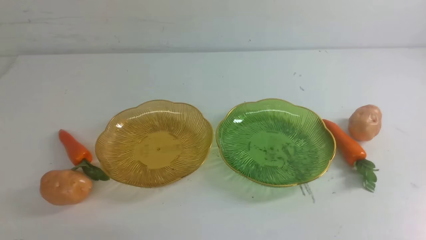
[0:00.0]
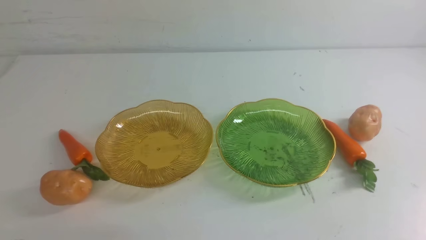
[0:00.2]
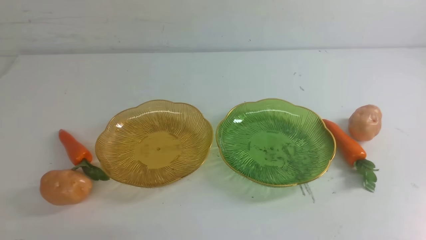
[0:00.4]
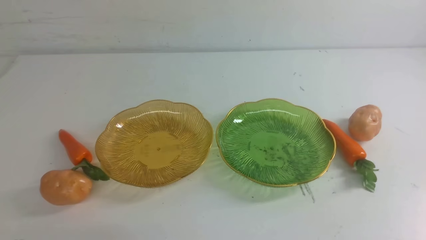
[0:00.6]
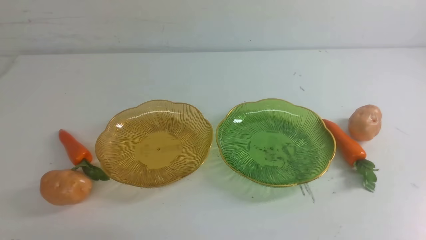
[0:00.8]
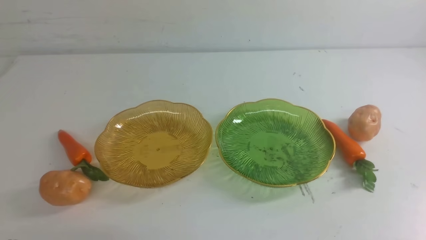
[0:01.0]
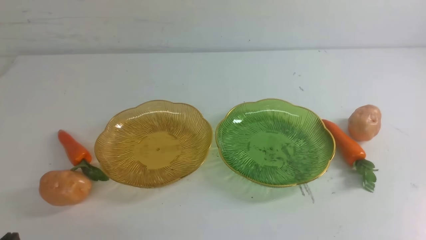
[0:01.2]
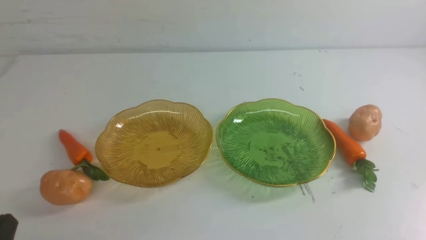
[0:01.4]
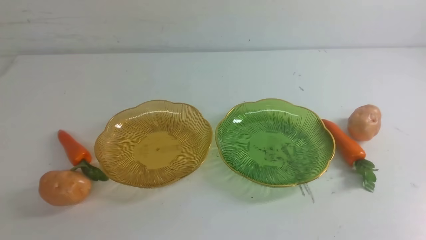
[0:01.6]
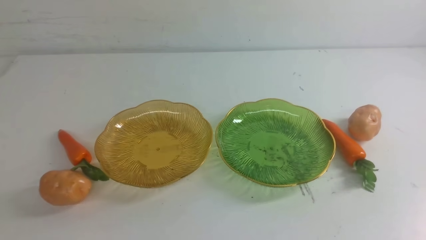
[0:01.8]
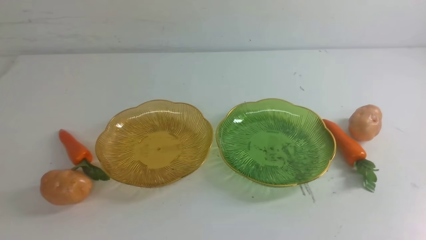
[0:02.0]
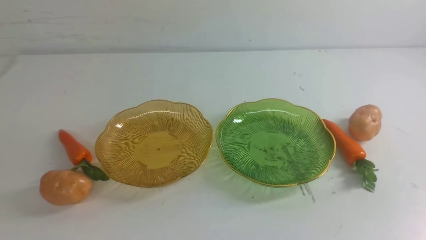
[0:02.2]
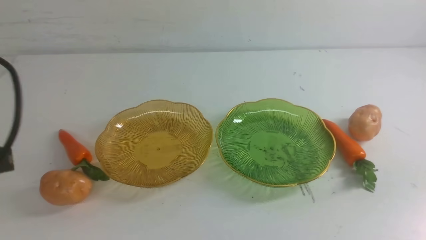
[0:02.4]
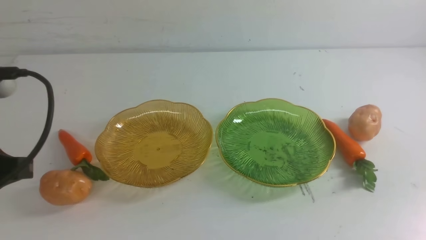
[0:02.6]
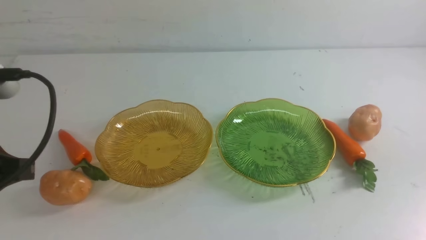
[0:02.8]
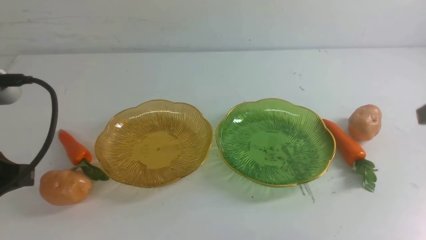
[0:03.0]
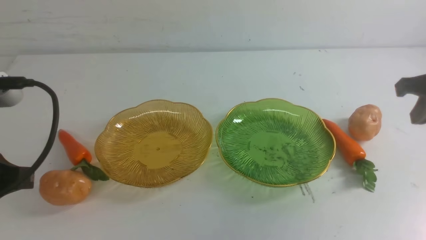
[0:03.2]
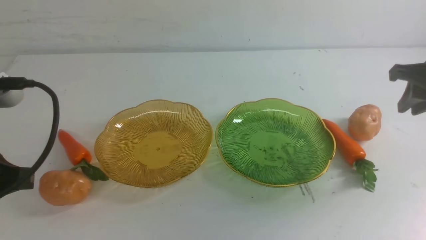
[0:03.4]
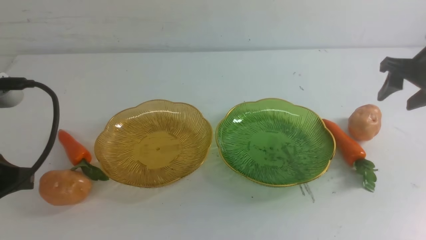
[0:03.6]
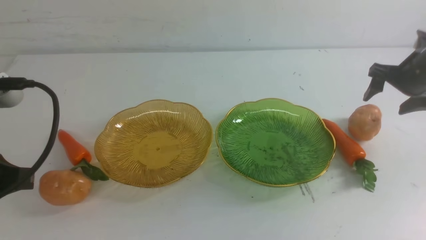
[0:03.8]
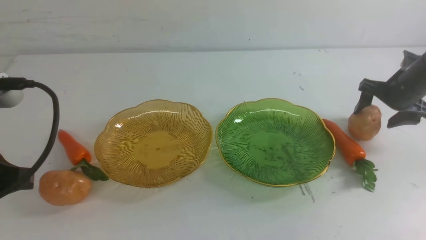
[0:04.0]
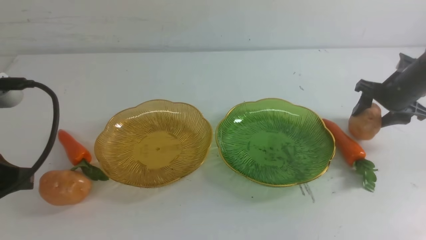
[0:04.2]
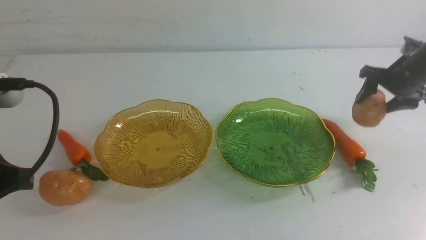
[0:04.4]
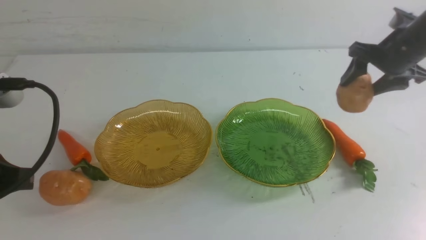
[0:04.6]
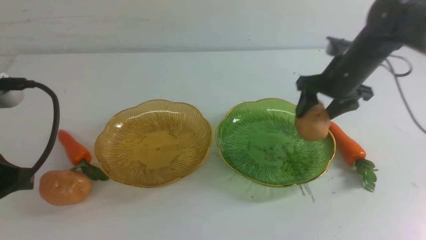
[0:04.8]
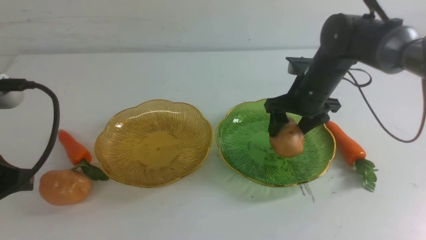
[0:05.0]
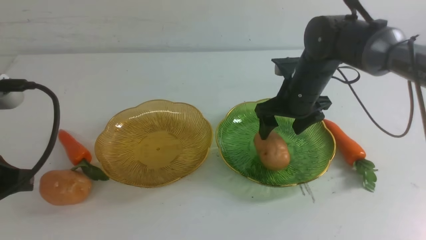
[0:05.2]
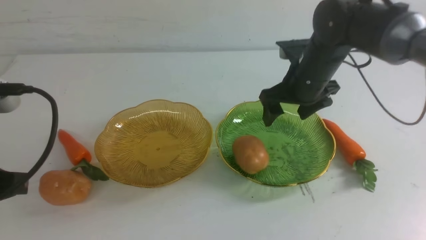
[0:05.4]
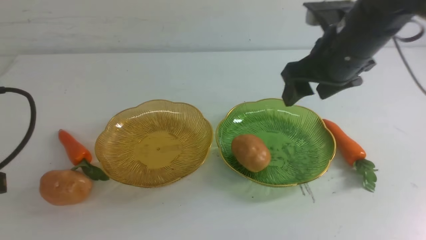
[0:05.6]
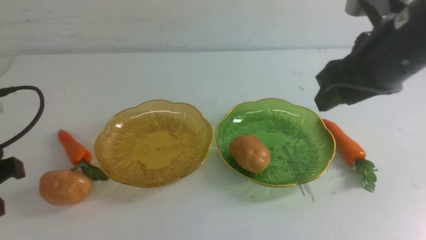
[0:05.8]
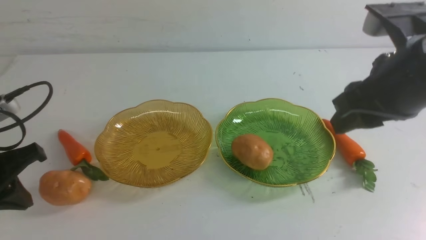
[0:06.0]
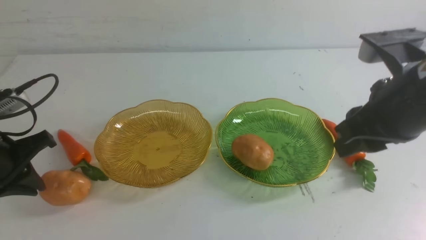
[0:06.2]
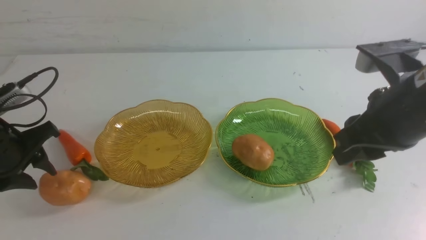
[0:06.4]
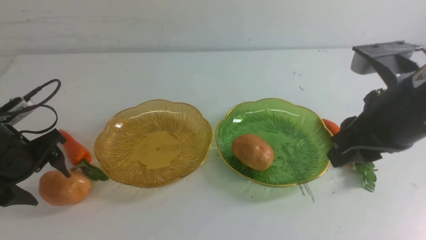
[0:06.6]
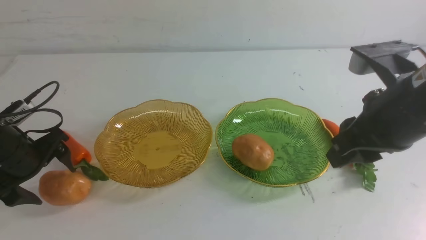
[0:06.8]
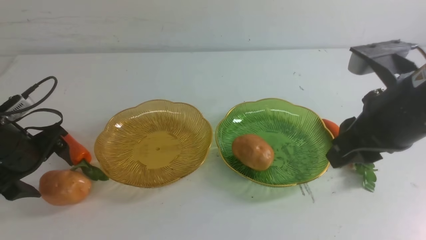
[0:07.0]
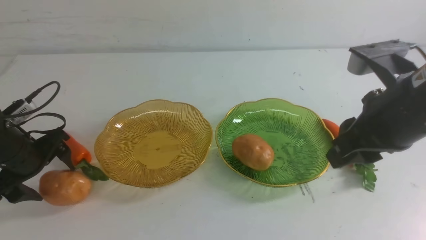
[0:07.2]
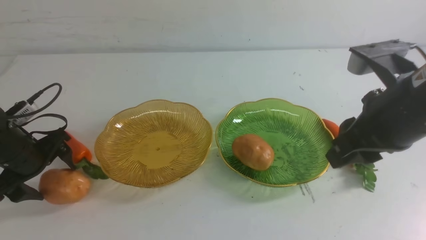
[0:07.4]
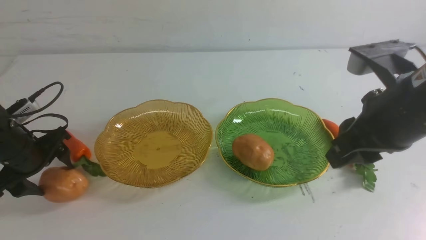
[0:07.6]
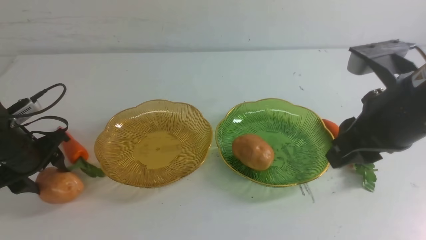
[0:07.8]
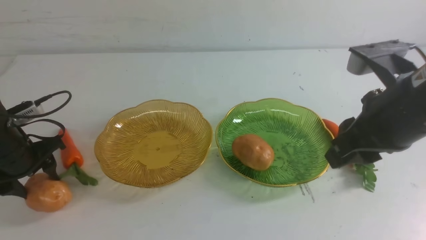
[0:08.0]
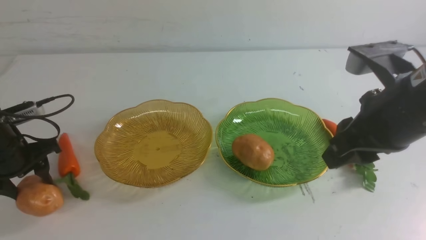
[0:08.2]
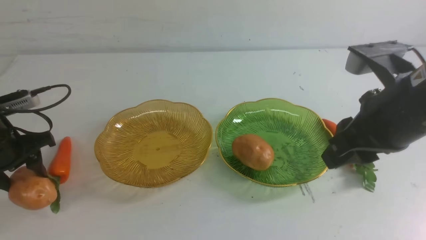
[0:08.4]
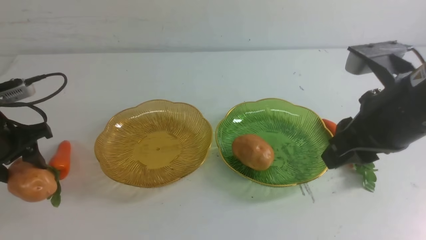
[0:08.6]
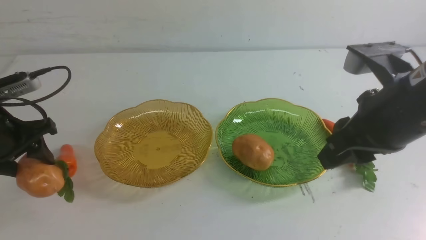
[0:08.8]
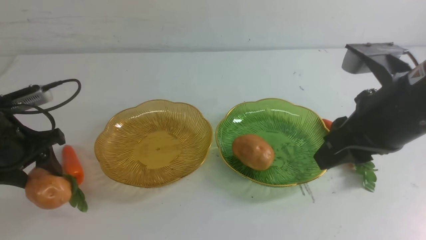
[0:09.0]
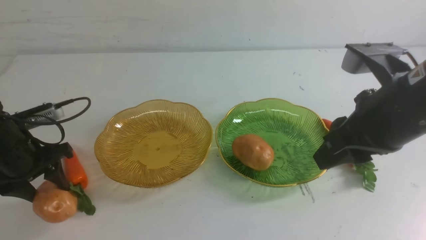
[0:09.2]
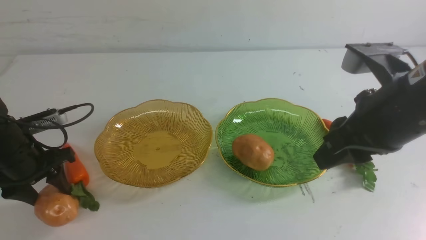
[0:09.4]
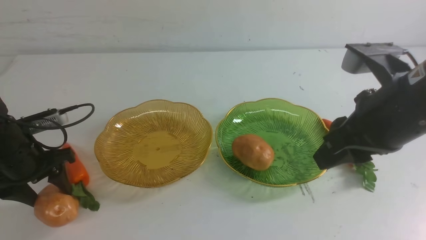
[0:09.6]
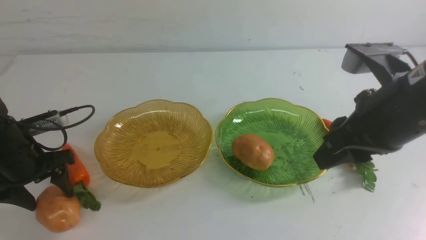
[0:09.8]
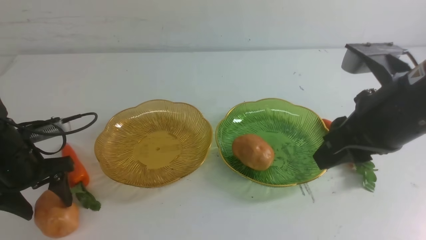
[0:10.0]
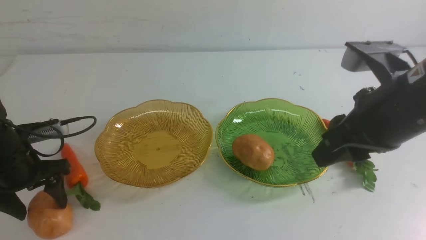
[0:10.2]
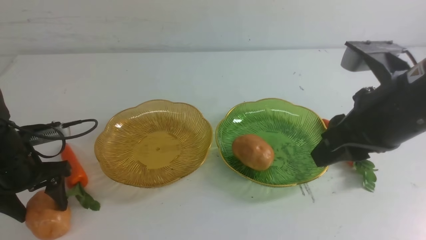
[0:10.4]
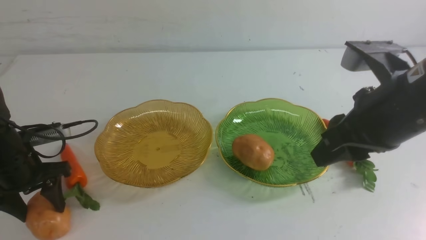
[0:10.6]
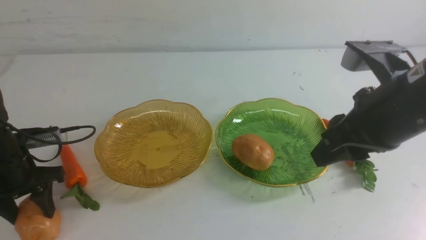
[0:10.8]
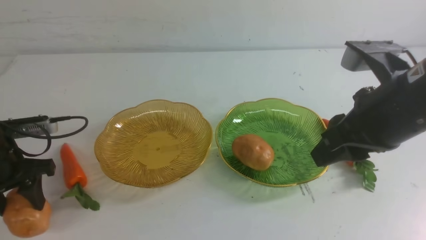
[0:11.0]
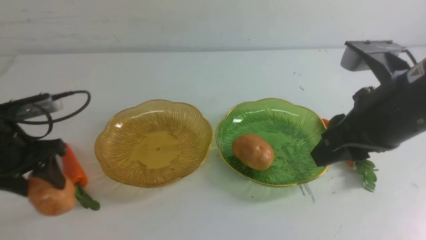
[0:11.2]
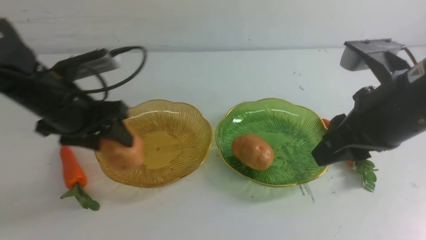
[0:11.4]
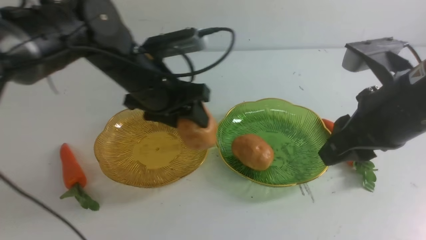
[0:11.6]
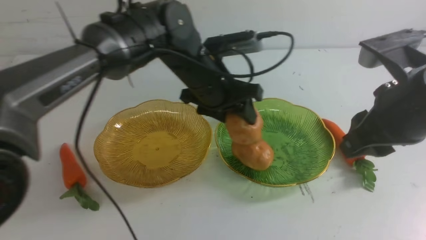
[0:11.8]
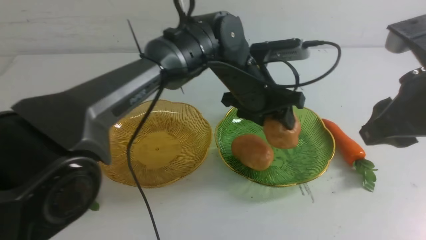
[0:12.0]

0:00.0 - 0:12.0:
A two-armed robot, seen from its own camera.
Step, 0:00.0 - 0:05.2: Grab a potato with your right arm and put it on the right plate.
0:01.6 - 0:03.0: The left gripper is displaced upward and forward by roughly 15 cm.
0:03.0 - 0:04.4: The right gripper is displaced forward and downward by approximately 20 cm, and opens up.
0:04.4 - 0:06.0: The left gripper moves forward, downward and to the left, approximately 15 cm; the right gripper travels backward, to the left and upward by about 25 cm, and closes up.
0:06.0 - 0:07.6: The left gripper goes roughly 10 cm downward and forward, and opens its fingers.
0:09.0 - 0:10.4: The grippers stay close to where they were, moving slightly.
0:10.4 - 0:12.0: The left gripper shifts some 35 cm to the right.

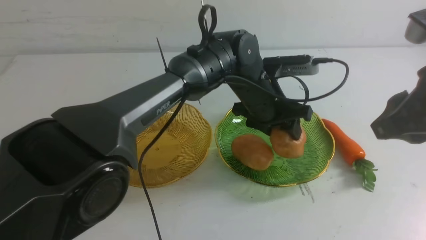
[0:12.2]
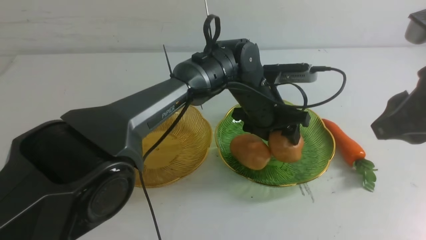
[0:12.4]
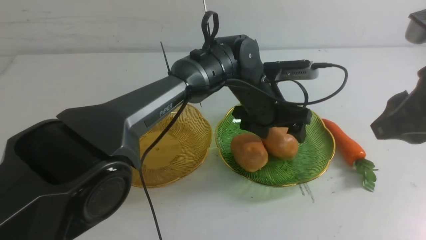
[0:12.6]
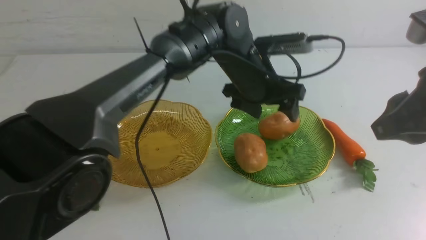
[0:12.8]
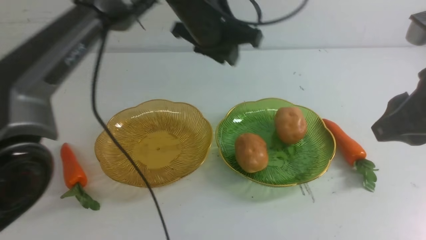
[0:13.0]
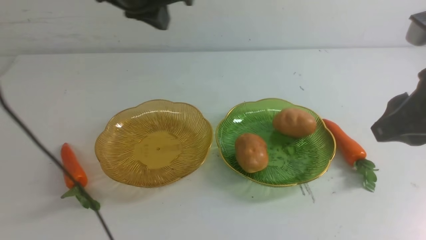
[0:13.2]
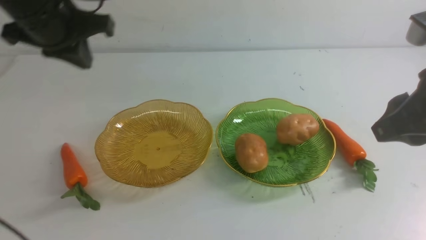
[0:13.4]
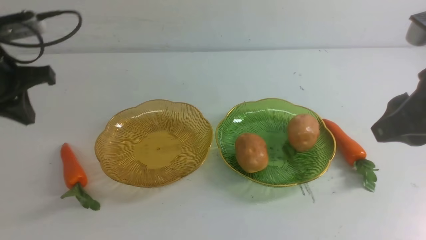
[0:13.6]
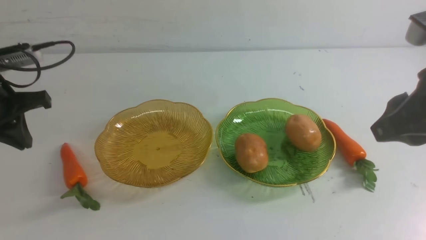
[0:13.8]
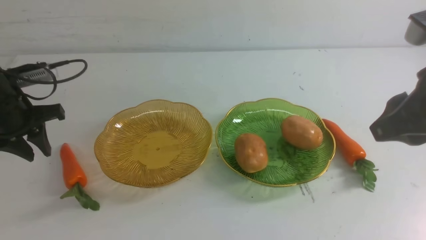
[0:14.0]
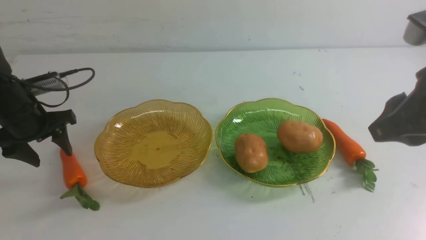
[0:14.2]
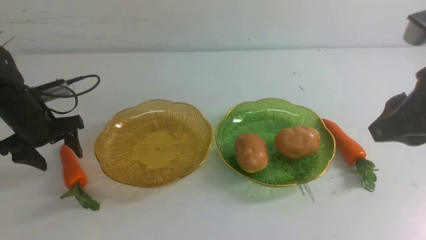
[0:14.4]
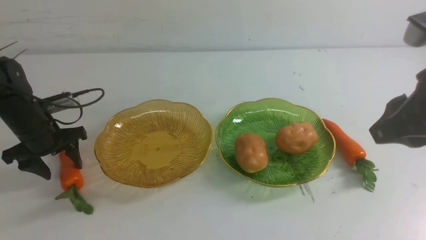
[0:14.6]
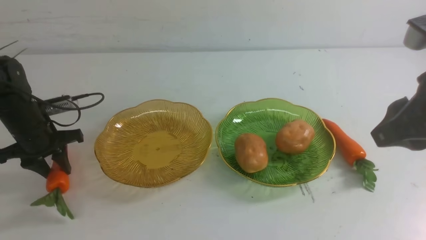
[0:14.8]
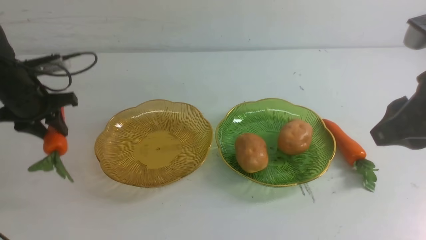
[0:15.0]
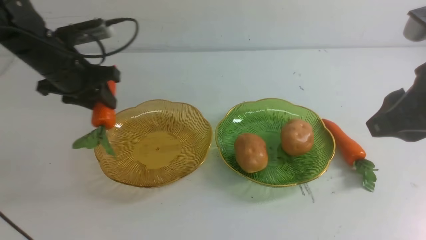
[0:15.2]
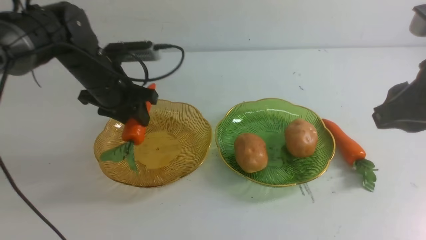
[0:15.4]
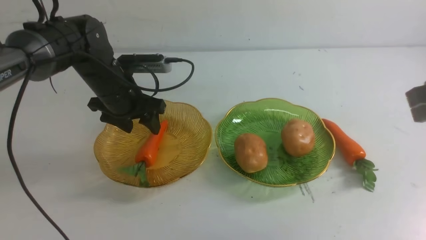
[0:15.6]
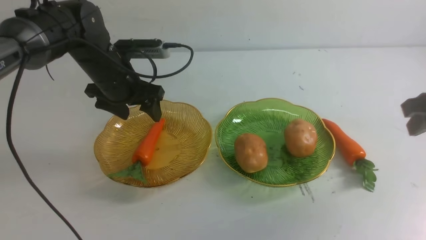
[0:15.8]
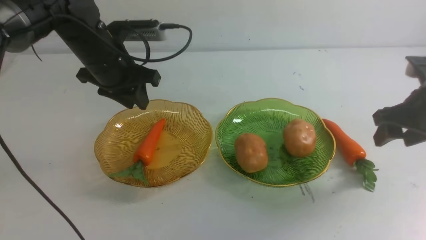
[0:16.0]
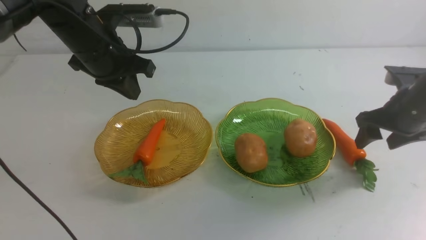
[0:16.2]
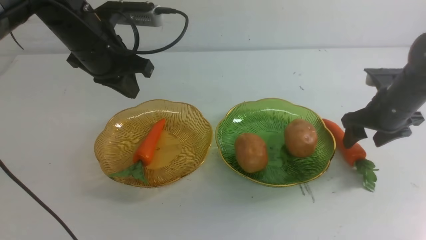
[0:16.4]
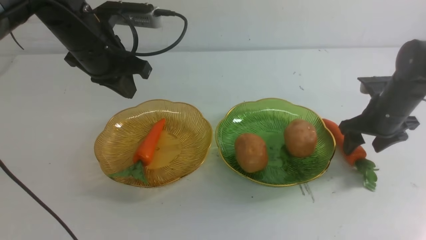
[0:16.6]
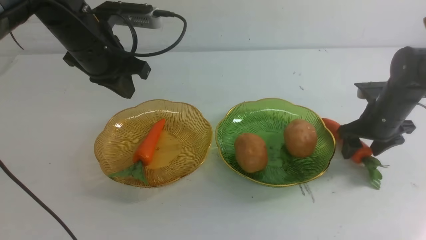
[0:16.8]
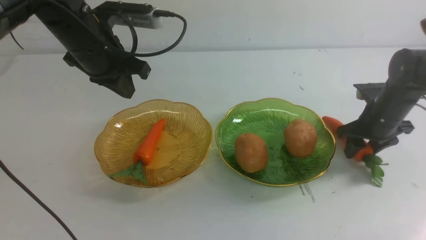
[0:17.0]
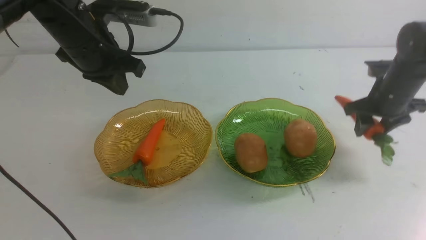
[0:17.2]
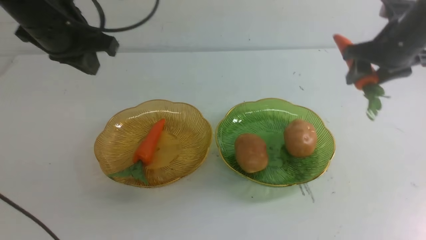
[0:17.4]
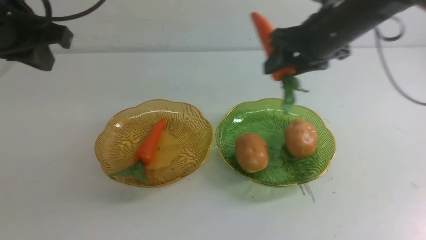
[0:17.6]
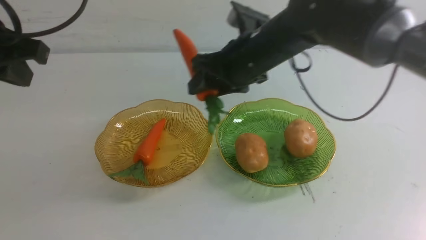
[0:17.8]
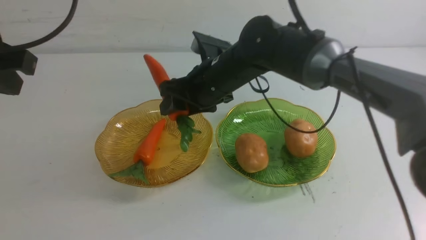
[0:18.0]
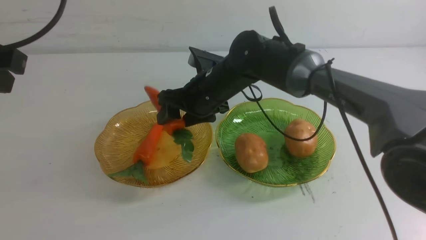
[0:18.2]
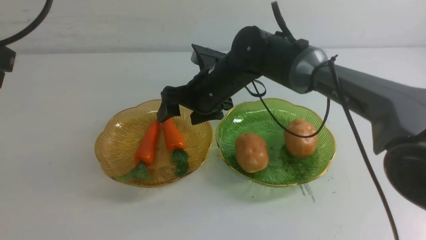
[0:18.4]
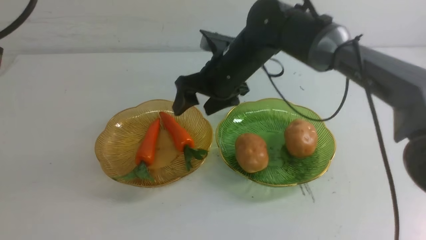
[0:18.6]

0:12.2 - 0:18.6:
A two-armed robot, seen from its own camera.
Step, 0:12.8 - 0:15.6: use the left arm to grab a carrot and put it into the left plate.
Step, 0:15.8 - 0:18.4: use the right arm to grab a carrot and put it into the left plate.
0:12.2 - 0:13.8: The left gripper goes roughly 35 cm to the left, and closes.
0:13.8 - 0:15.4: The right gripper shifts roughly 10 cm to the right and forward; the left gripper heads to the right and forward, covering about 15 cm, and opens its fingers.
0:15.4 - 0:17.0: The right gripper travels forward and downward by approximately 20 cm; the left gripper is displaced upward by about 10 cm, and closes up.
0:17.0 - 0:18.6: The left gripper travels backward and upward by roughly 25 cm. Meanwhile the right gripper is displaced to the left and upward by approximately 25 cm, and opens and closes again.
